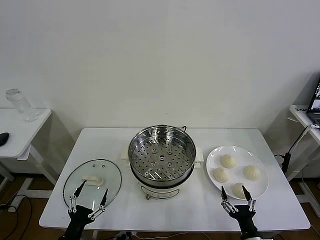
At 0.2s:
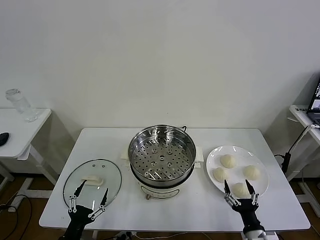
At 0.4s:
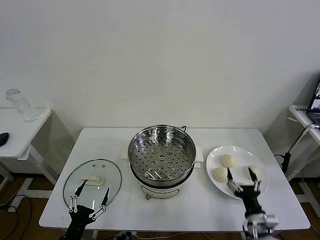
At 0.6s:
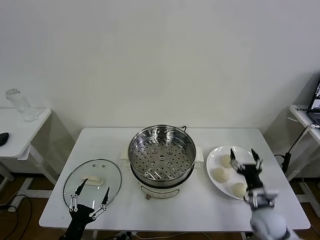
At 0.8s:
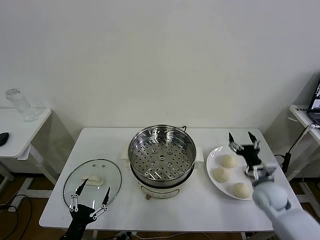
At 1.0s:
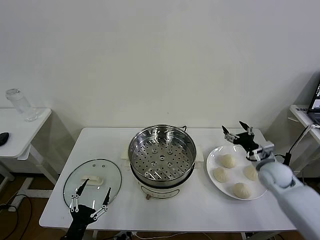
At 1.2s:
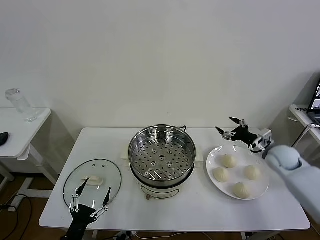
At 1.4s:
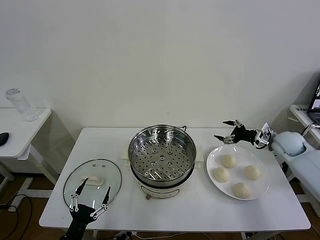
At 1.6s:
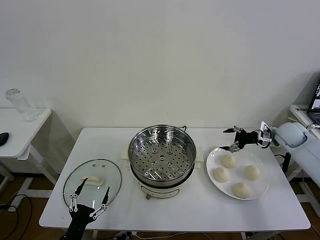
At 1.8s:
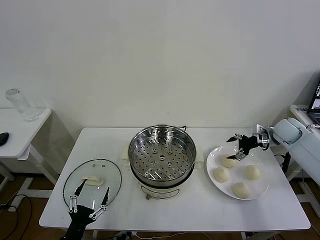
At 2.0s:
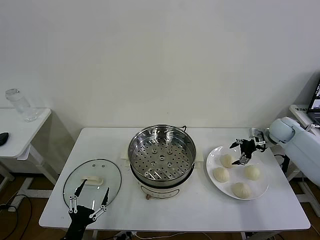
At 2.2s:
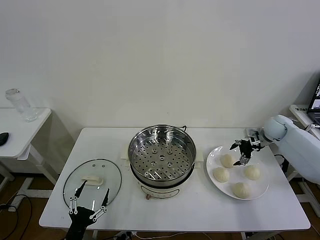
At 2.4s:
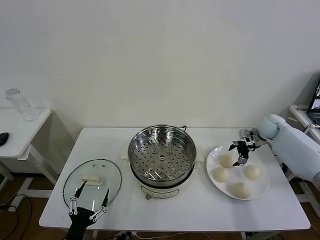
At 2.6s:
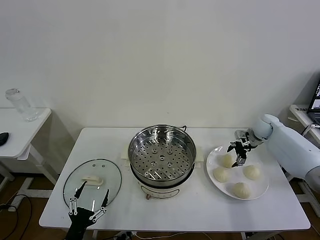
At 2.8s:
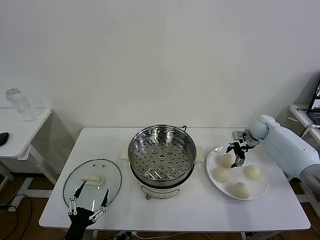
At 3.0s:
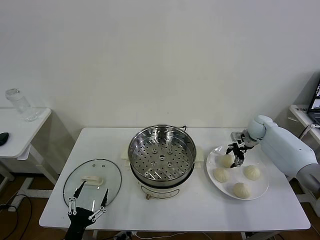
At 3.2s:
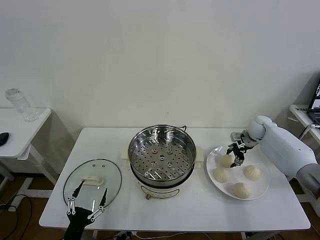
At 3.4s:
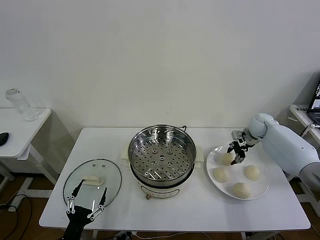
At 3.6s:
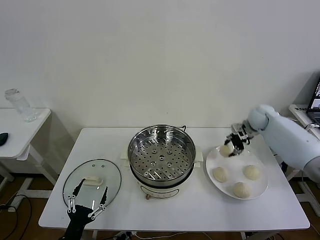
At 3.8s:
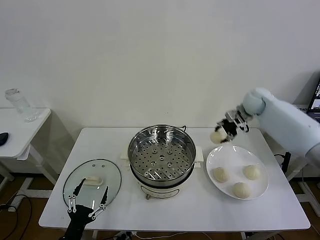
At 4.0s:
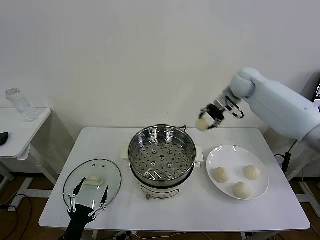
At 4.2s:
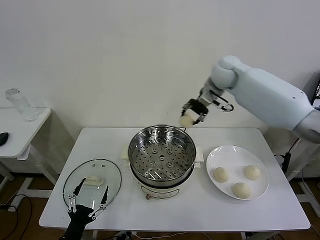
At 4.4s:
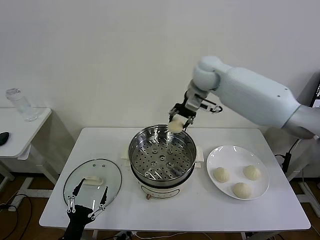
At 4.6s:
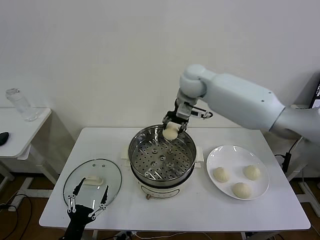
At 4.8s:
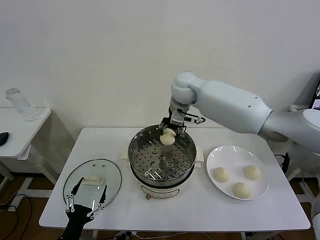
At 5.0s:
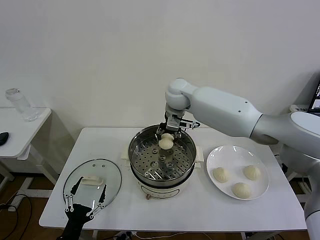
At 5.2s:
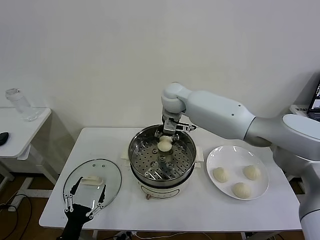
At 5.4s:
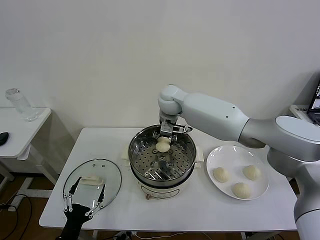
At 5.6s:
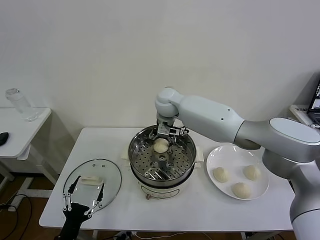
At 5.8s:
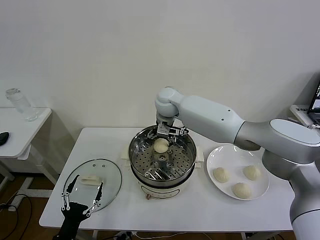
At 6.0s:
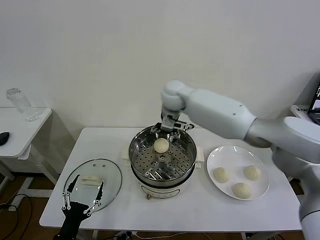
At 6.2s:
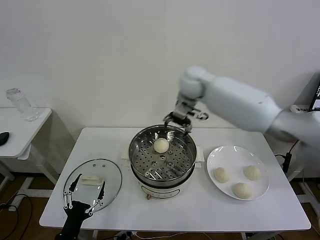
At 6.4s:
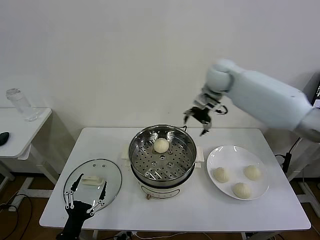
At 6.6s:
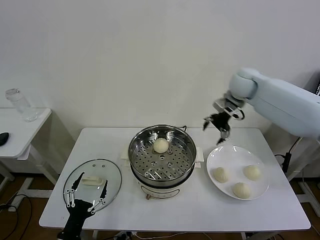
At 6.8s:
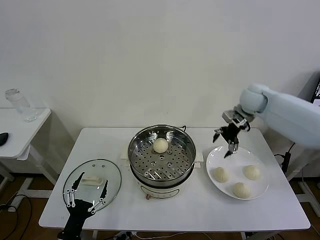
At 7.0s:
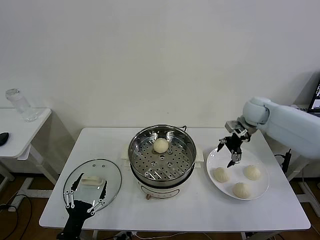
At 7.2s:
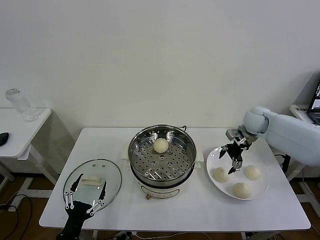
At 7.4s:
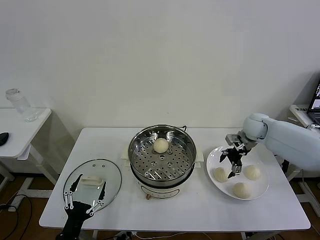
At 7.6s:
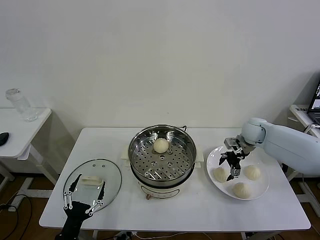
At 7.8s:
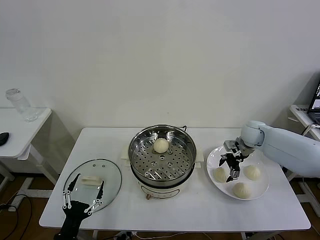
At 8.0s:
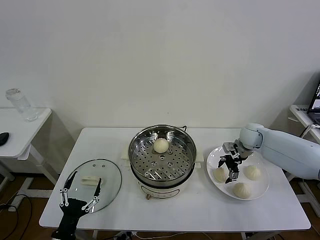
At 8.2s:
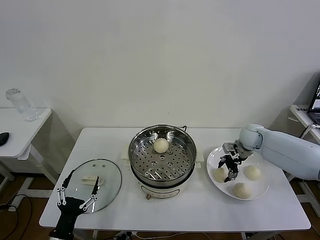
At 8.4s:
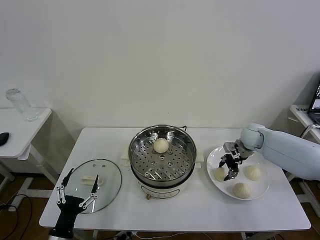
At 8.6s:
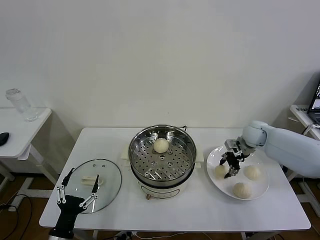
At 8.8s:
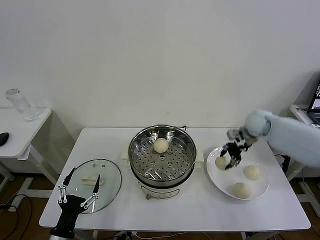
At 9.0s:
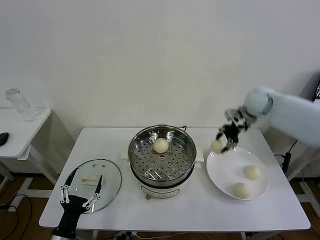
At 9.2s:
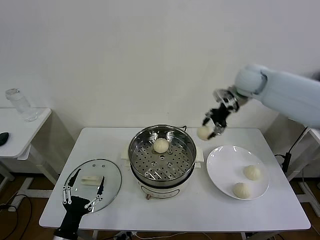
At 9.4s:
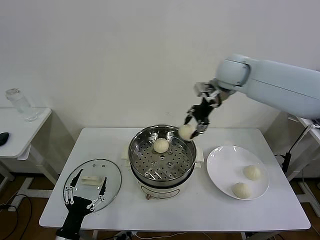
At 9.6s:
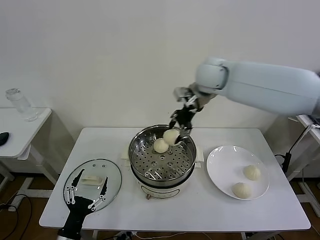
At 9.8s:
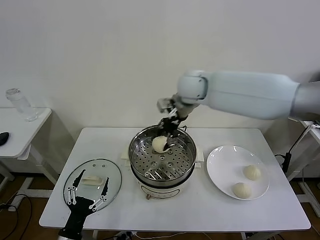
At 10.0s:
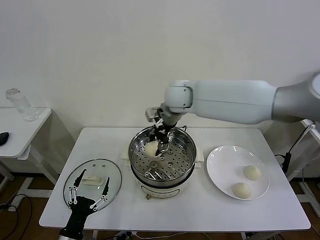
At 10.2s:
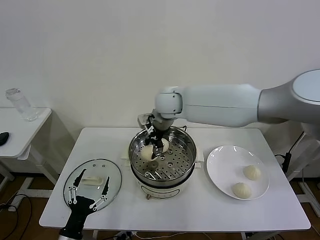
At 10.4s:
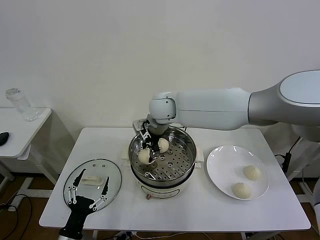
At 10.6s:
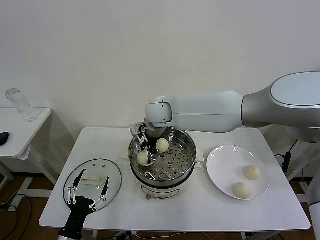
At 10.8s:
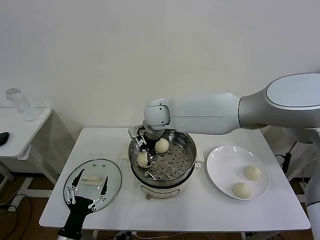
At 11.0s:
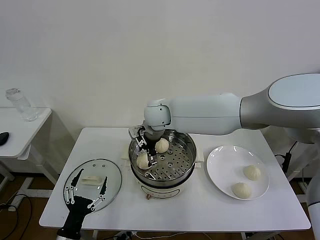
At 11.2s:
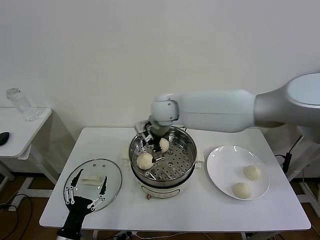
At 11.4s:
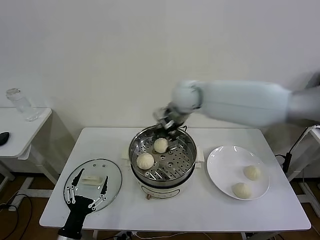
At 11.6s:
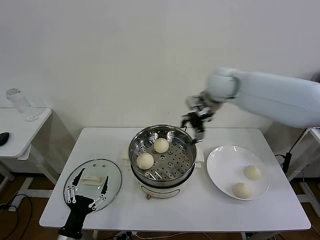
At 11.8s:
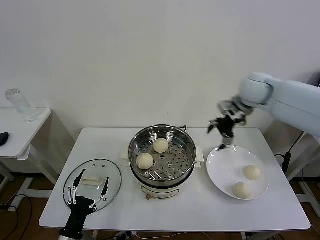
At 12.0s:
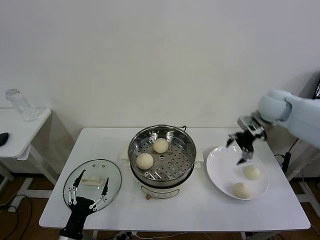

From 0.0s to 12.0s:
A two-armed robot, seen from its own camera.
Task of the whole recording: take steamed baozi put them in steamer then cover it.
Step, from 0.0s to 3.2s: Grasp the baozi in the plate with right gripper.
Step, from 3.4s to 6.2s: Place the baozi on the steamer with right gripper.
Step, from 6.4s to 8.4s: Grasp the baozi in the plate with right gripper.
Step, from 8.6s to 11.2s: Place the baozi on the steamer with right gripper.
From 1.6s to 3.0s: The right gripper goes some 10 cm forward and to the left, and closes up.
From 3.0s to 4.4s: The right gripper travels to the left and upward by some 35 cm, and closes its fingers.
From 4.4s to 6.0s: The right gripper opens its fingers.
From 6.0s to 7.6s: The right gripper travels to the right and downward by some 35 cm.
From 7.6s to 9.0s: The right gripper shifts some 15 cm upward, and closes.
From 9.0s to 10.4s: The right gripper is displaced to the left by approximately 30 cm.
From 10.4s to 12.0s: The right gripper goes roughly 35 cm to the right, and opens up.

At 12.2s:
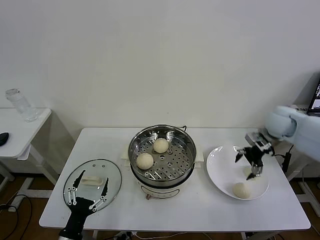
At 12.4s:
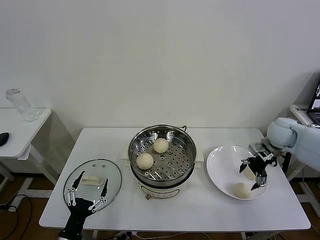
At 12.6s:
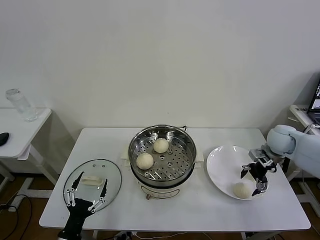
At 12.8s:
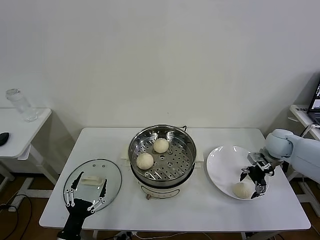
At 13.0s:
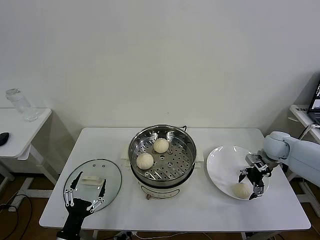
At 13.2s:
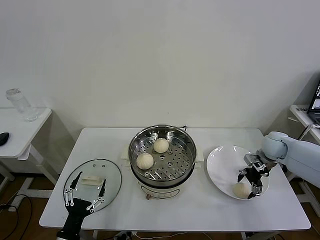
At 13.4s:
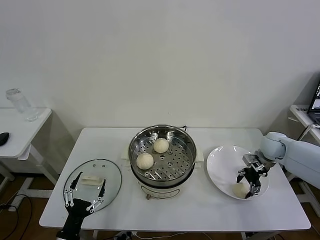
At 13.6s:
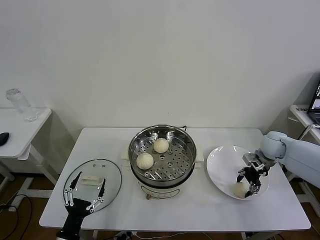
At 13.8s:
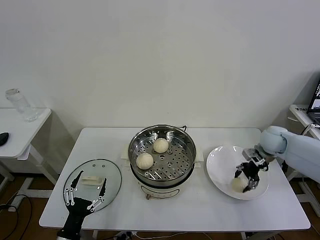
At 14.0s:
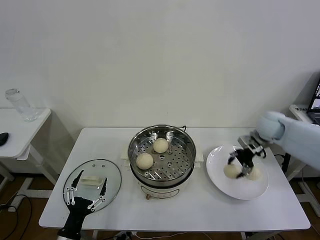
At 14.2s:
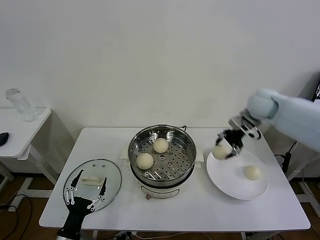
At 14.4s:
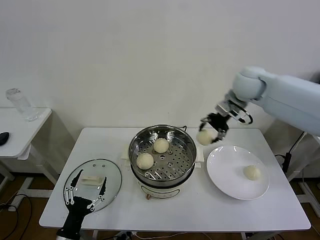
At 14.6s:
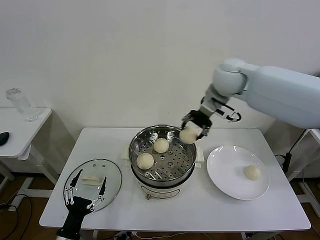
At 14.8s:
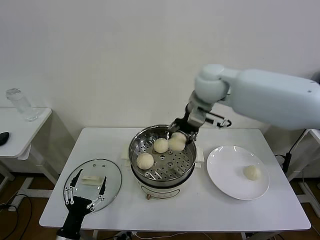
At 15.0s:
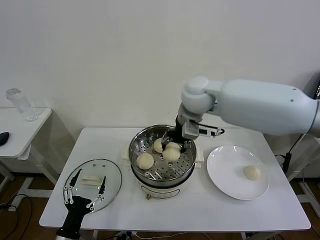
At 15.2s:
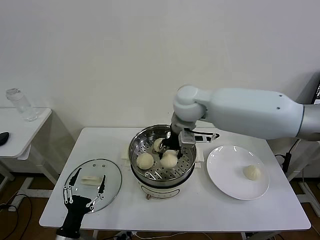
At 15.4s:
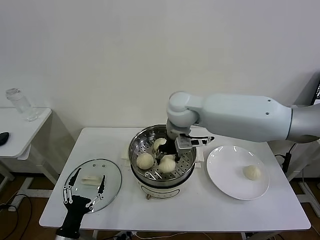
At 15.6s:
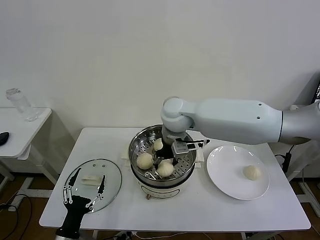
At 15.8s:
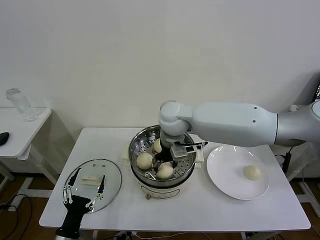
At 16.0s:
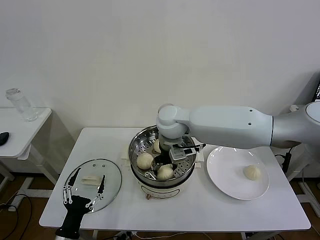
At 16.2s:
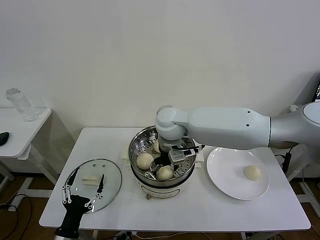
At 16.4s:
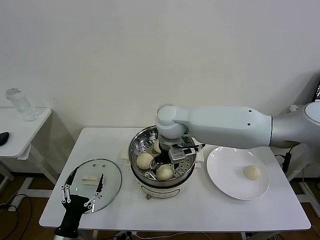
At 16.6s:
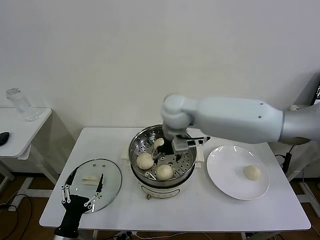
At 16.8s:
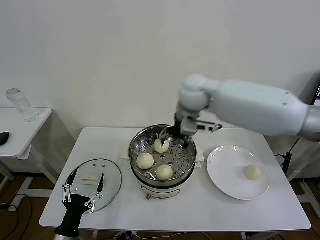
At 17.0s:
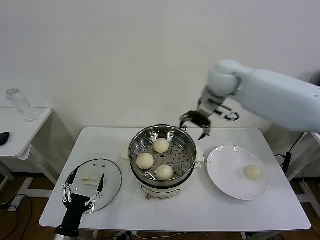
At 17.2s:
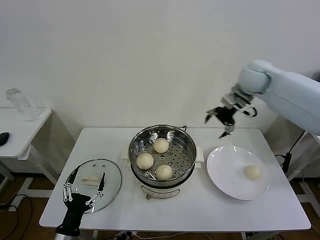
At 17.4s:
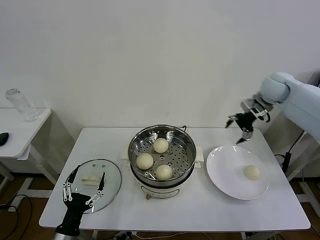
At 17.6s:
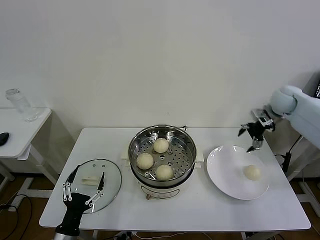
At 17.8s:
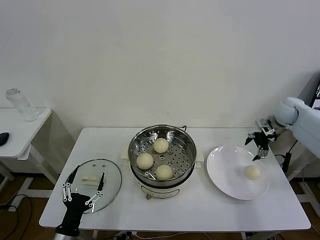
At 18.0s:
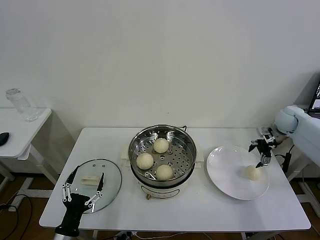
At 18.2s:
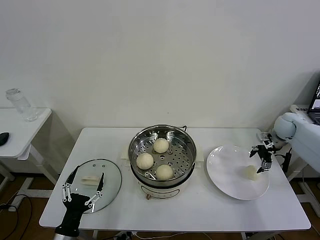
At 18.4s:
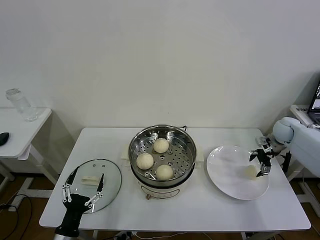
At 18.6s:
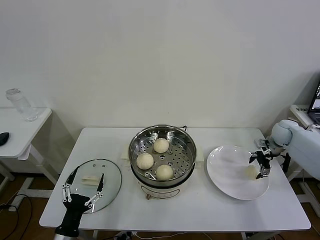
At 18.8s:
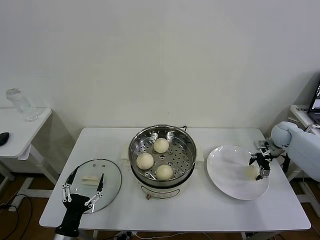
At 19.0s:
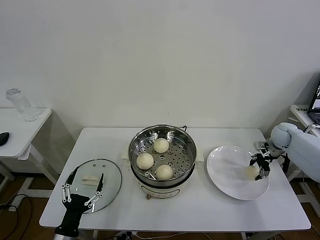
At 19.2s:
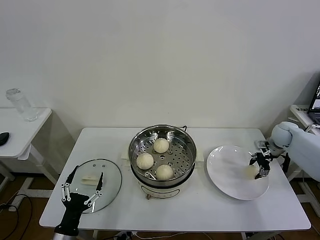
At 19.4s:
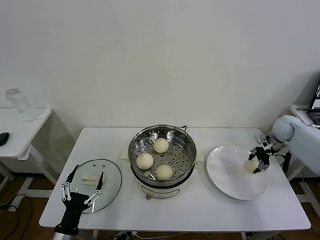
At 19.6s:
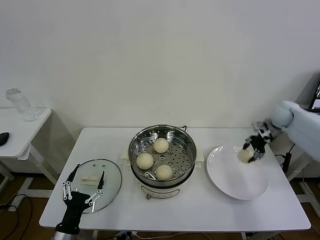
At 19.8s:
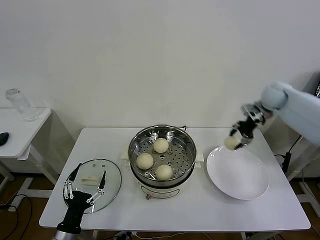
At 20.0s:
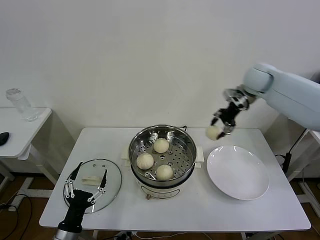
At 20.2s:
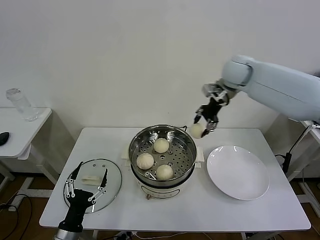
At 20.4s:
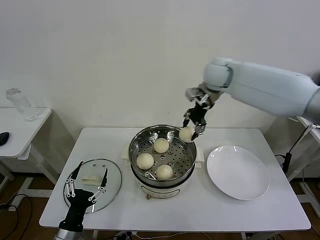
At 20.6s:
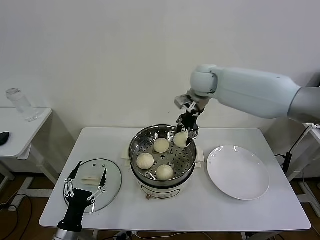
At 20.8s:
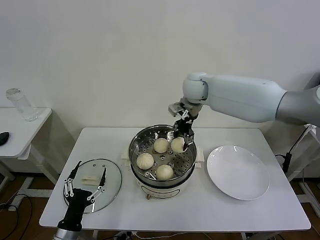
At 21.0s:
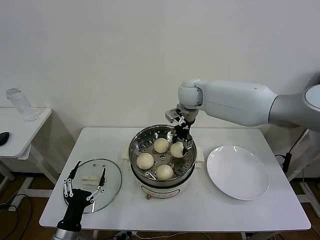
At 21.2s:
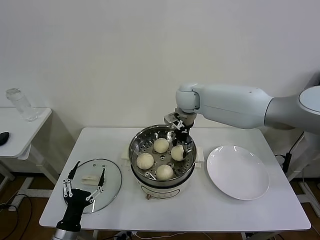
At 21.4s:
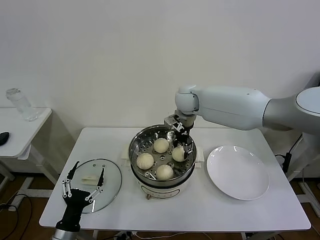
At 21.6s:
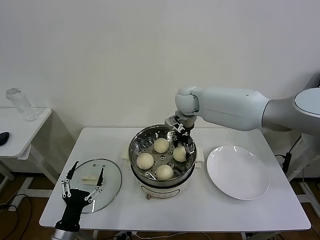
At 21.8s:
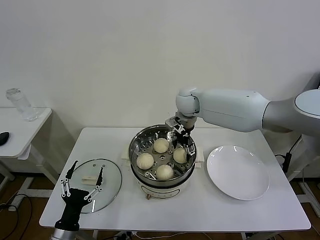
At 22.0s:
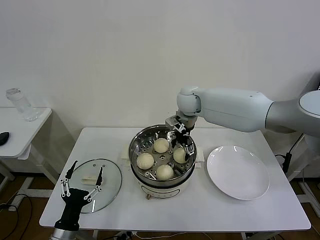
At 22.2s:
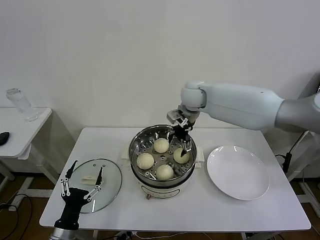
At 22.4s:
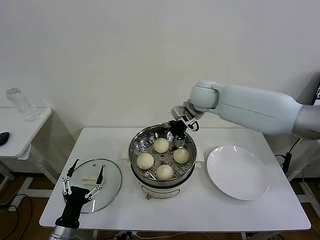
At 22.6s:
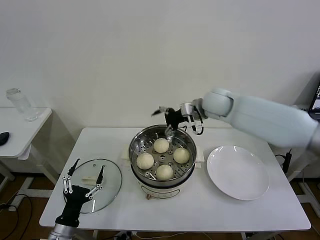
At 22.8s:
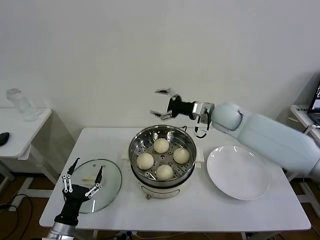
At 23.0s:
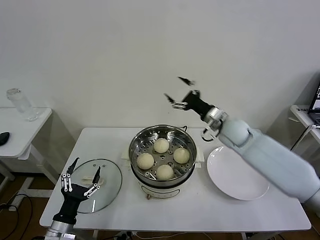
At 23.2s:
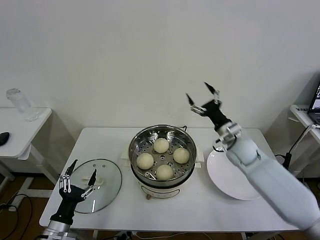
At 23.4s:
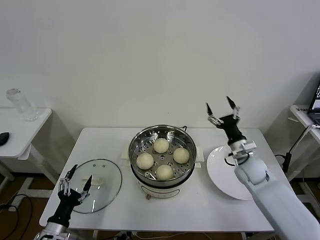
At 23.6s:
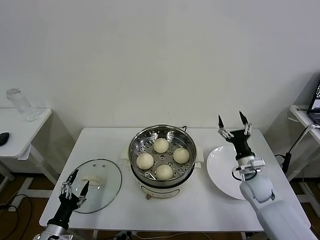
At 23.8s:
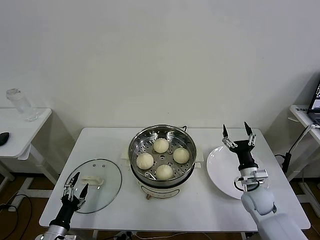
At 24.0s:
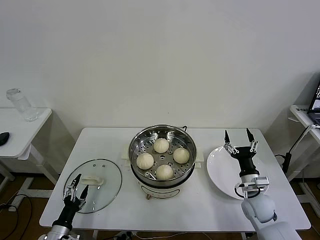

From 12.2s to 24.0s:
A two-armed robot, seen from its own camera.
Task of the whole recording: take steamed baozi put them in steamer then cover it.
Step, from 12.2s to 13.6s: Grasp the baozi in the plate with right gripper.
Step, from 13.8s to 16.8s: Place the baozi on the steamer with right gripper.
Step, from 17.0s to 19.0s: Grasp the baozi in the plate with right gripper.
Step, from 19.2s to 22.2s: Place the baozi on the steamer with right gripper.
From 12.2s to 13.6s: The right gripper shifts approximately 10 cm downward, and closes its fingers.
From 13.6s to 15.2s: The right gripper is displaced to the left and upward by approximately 40 cm.
From 15.2s to 16.6s: The right gripper opens its fingers.
From 16.6s to 18.2s: The right gripper heads to the right, covering approximately 40 cm.
From 18.2s to 19.6s: The right gripper goes some 5 cm upward, and closes up.
From 19.6s to 21.0s: The right gripper travels to the left by about 35 cm.
From 21.0s to 22.6s: The right gripper is displaced to the right by approximately 10 cm, and opens up.
From 22.6s to 24.0s: The right gripper heads downward, backward and to the right, covering about 40 cm; the left gripper moves downward and to the left, roughly 10 cm.
